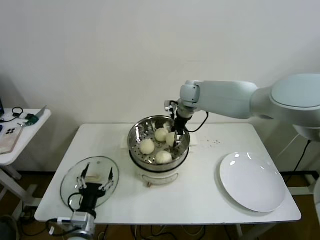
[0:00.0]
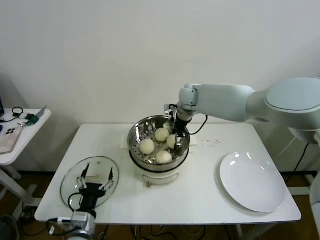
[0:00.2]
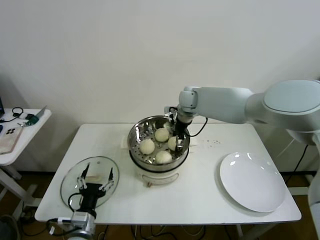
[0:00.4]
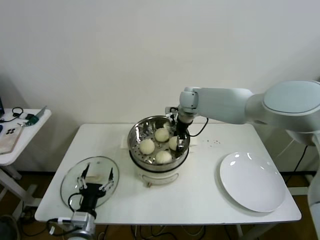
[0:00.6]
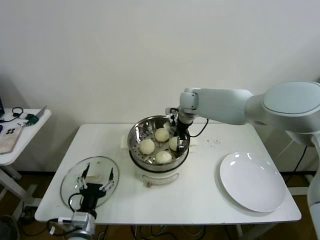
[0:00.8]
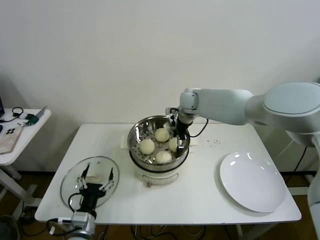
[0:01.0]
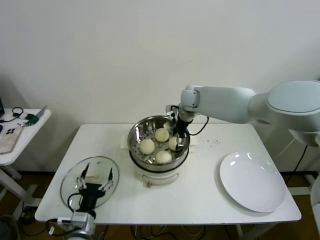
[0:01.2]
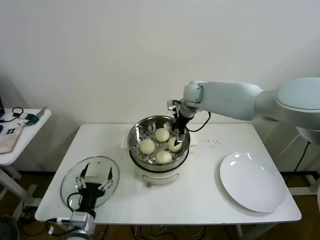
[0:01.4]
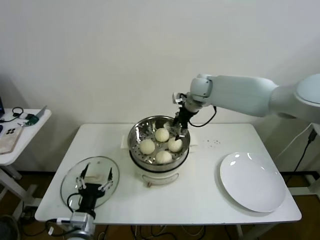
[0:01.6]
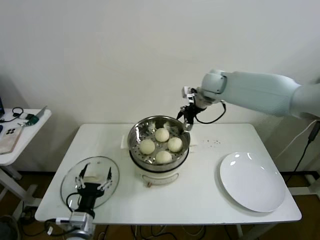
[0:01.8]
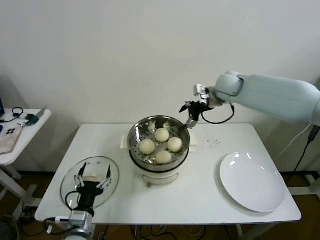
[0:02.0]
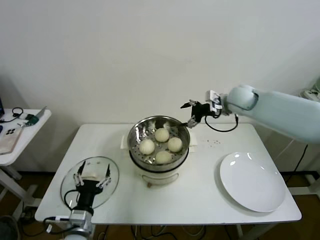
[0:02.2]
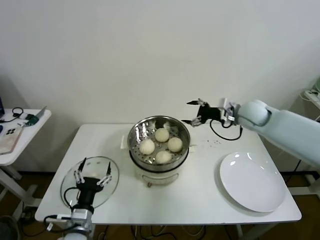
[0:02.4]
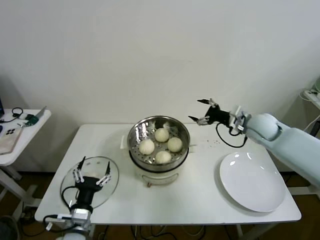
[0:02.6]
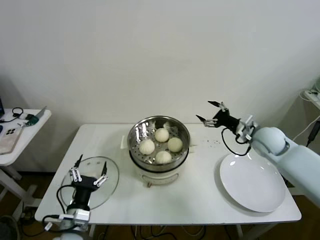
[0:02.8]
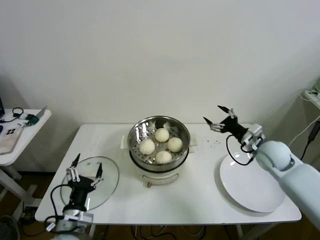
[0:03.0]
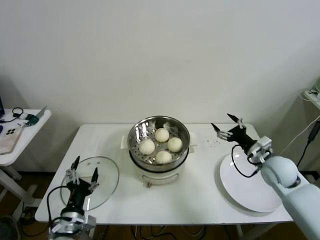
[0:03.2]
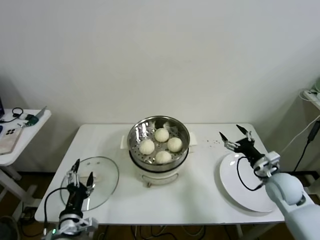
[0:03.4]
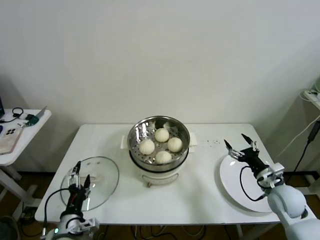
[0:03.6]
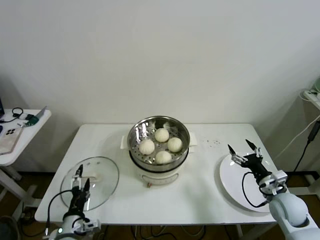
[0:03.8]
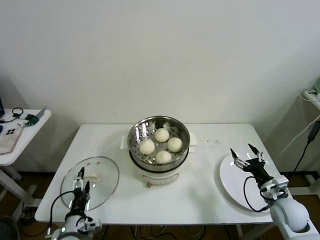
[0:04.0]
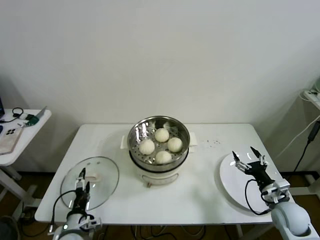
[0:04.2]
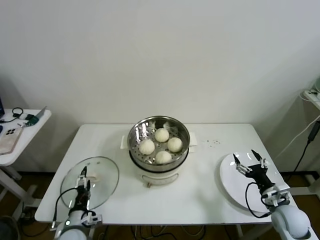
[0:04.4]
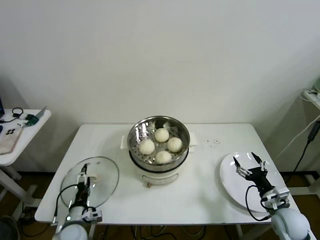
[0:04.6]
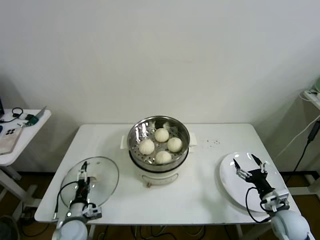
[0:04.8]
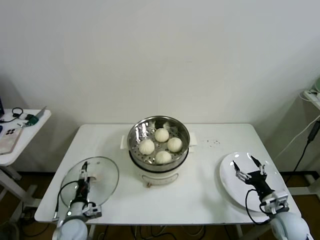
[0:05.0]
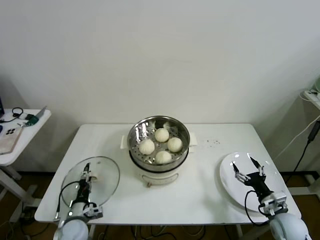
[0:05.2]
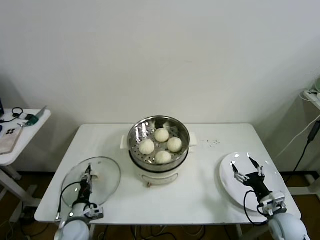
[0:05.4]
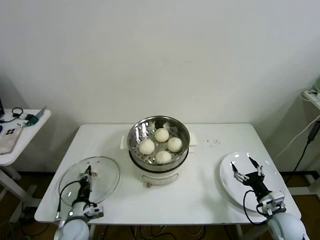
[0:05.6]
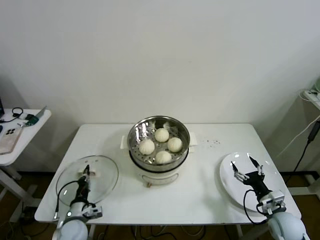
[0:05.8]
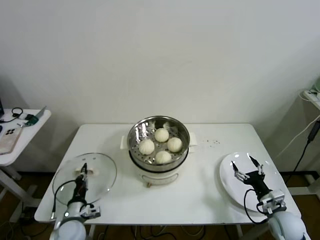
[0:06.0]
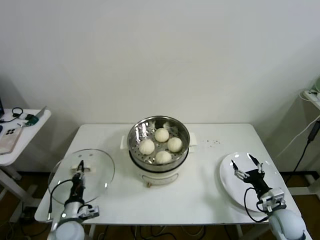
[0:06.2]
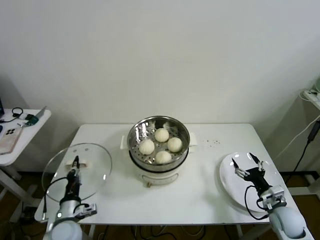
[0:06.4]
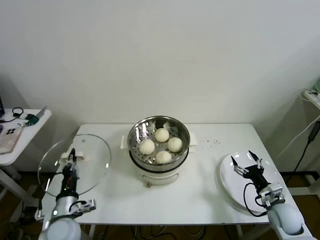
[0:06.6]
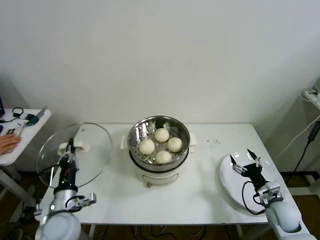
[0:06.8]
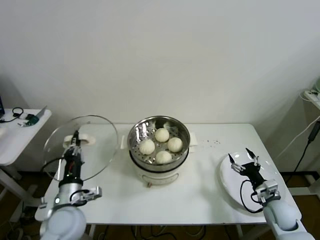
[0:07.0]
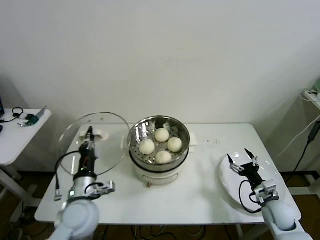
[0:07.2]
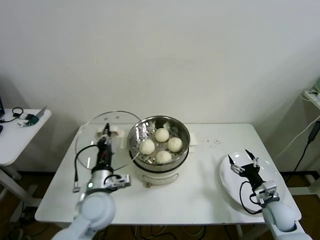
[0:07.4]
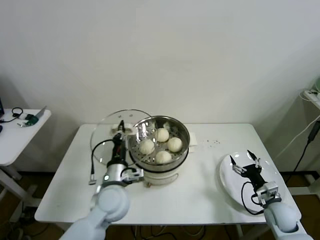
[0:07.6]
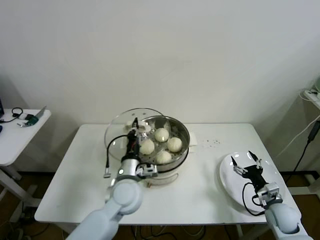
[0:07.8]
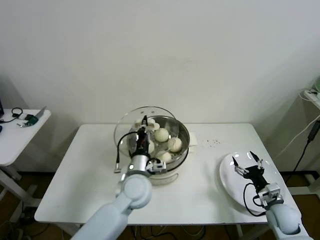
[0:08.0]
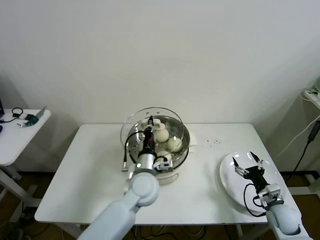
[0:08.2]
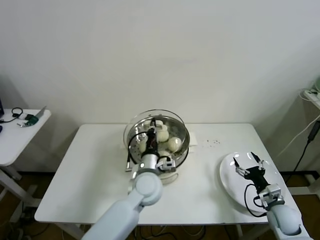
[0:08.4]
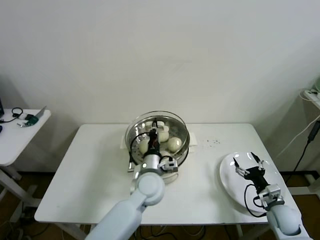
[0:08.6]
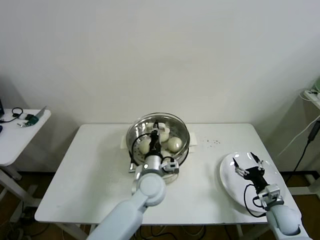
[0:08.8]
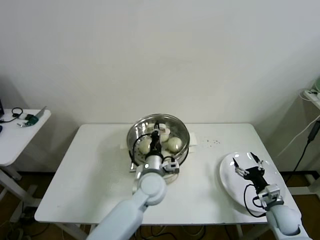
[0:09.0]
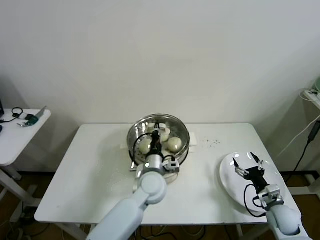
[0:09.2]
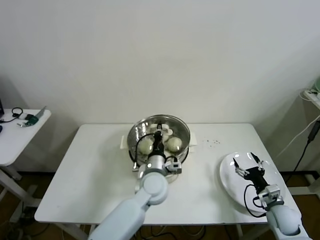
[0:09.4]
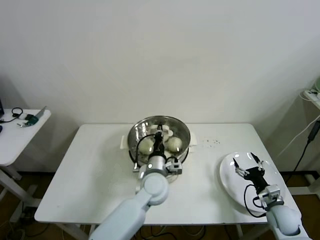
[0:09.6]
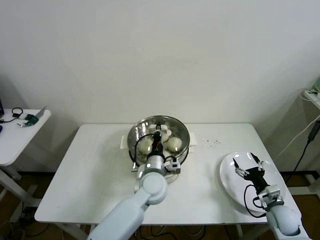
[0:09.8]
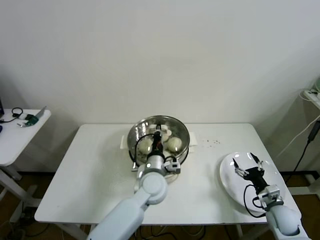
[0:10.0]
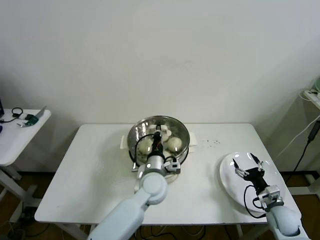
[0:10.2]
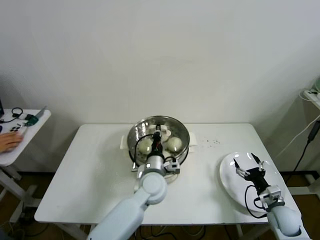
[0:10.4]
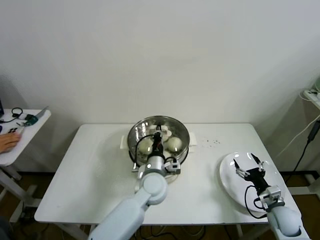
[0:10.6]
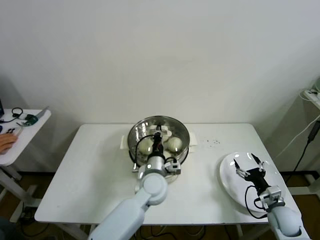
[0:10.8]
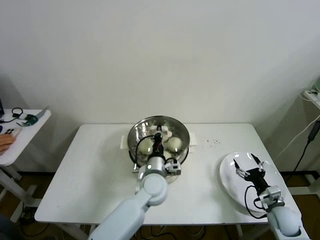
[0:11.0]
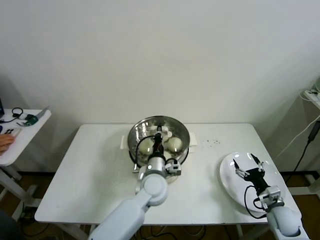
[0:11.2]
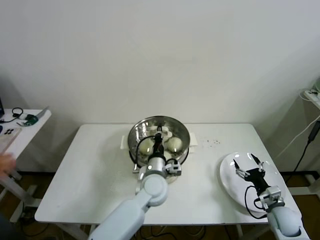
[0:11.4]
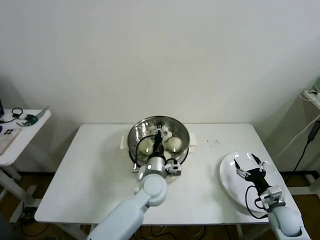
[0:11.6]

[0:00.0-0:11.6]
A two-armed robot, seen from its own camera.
Task of the whole recording: take steamed baozi put them in steamer then cover it.
Step, 0:01.4 to 0:05.4: Grasp the pot lid with left gripper.
0:00.0 to 0:01.4: The right gripper opens up.
0:01.4 to 0:02.8: The right gripper goes roughly 30 cm to the right, backward and downward.
0:02.8 to 0:04.4: The right gripper goes about 25 cm backward and downward, while the left gripper travels downward by roughly 10 cm.
0:04.4 to 0:05.8: The left gripper closes.
0:05.8 to 0:07.2: The left gripper is displaced upward and to the right by roughly 20 cm.
0:07.2 to 0:08.8: The left gripper heads to the right and forward, covering roughly 20 cm.
0:08.8 to 0:10.2: The grippers move only a little.
0:10.2 to 0:11.6: Both grippers stay put.

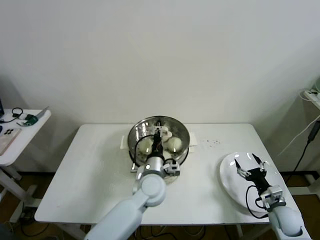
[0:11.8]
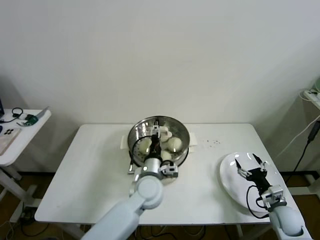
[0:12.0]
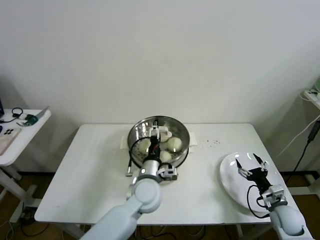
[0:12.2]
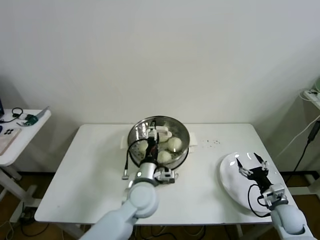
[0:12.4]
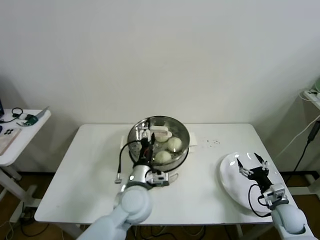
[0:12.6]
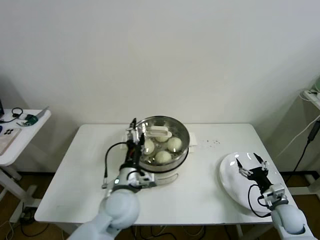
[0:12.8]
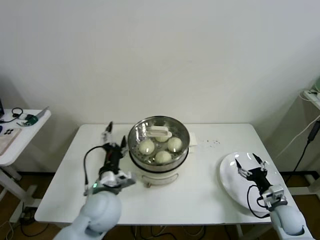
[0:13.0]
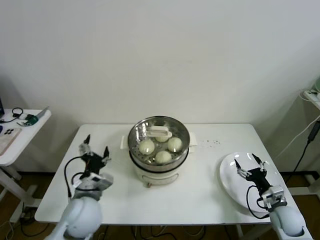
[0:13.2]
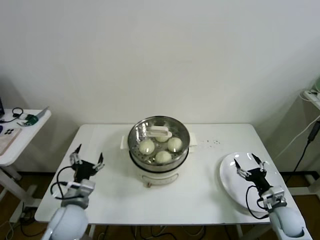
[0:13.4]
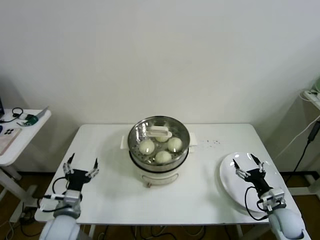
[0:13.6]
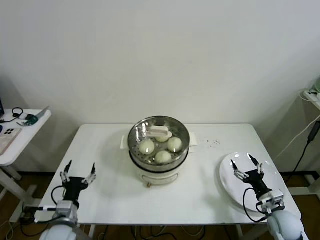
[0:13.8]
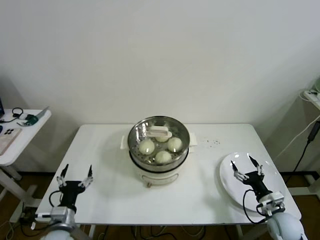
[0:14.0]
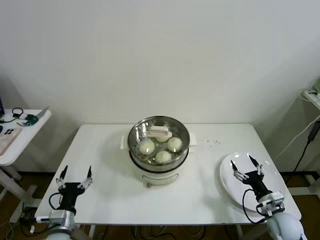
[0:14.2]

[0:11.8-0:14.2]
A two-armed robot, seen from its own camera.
Task of the whole recording: take steamed baozi put them in steamer then cover it.
0:11.8 to 0:13.0: The left gripper heads to the left and backward, covering roughly 15 cm, and opens up.
0:13.0 to 0:14.2: The left gripper shifts roughly 25 cm to the left, downward and backward.
